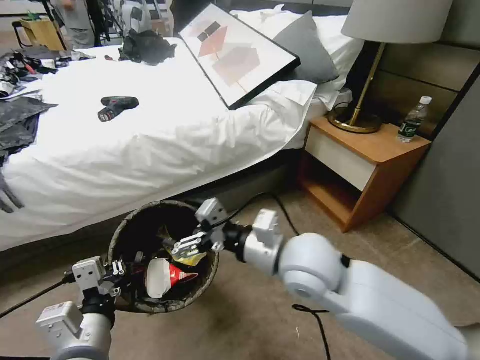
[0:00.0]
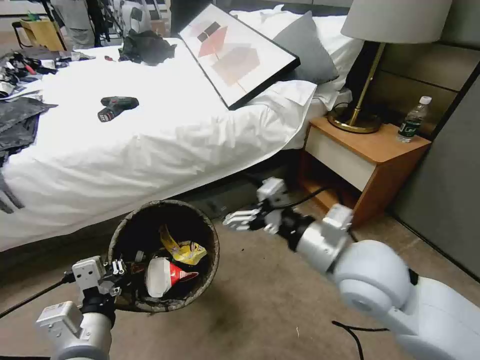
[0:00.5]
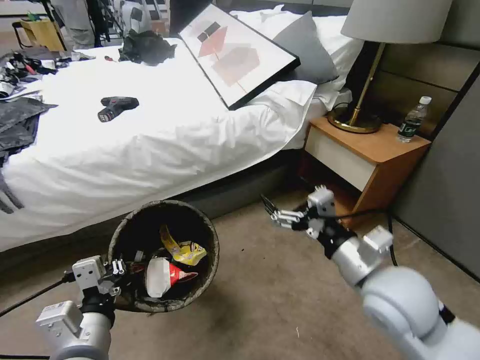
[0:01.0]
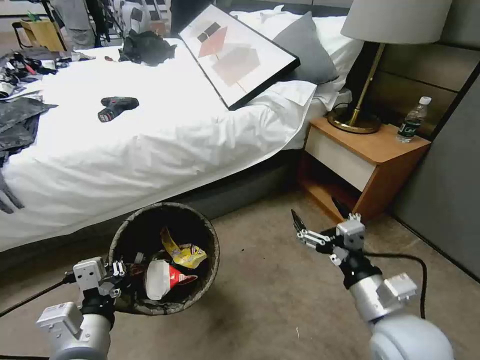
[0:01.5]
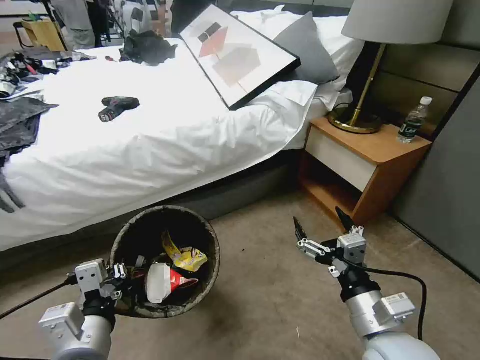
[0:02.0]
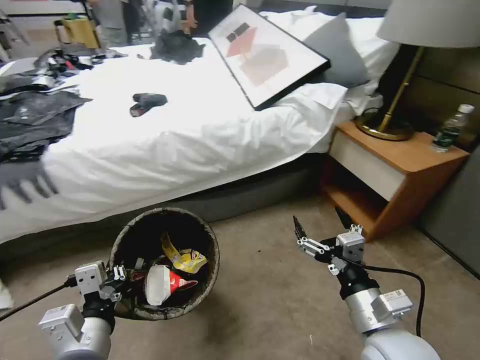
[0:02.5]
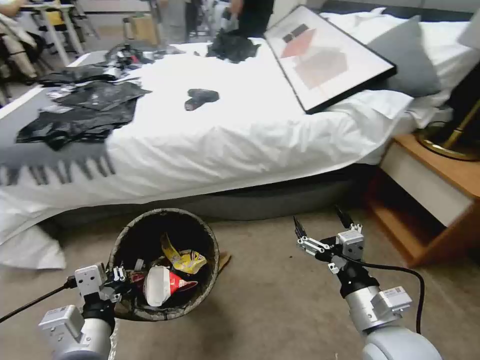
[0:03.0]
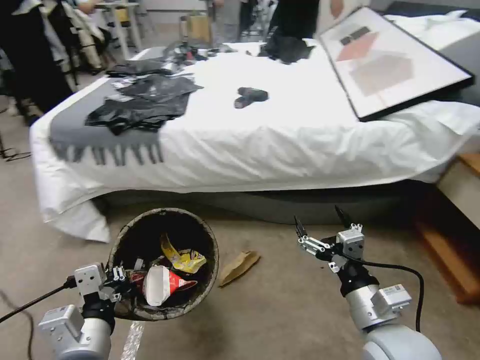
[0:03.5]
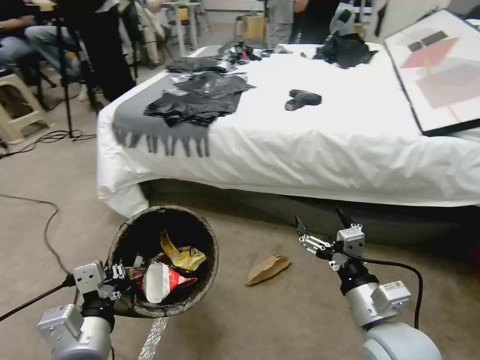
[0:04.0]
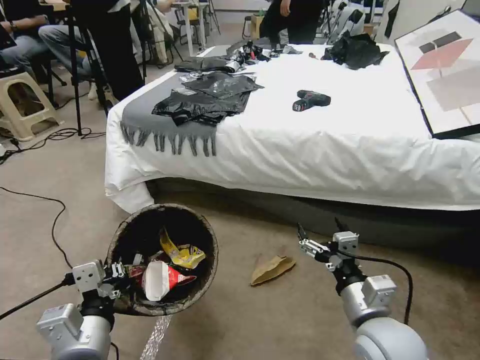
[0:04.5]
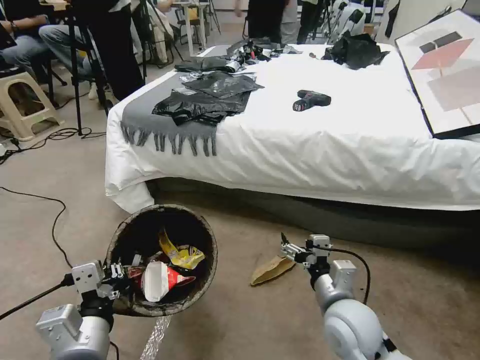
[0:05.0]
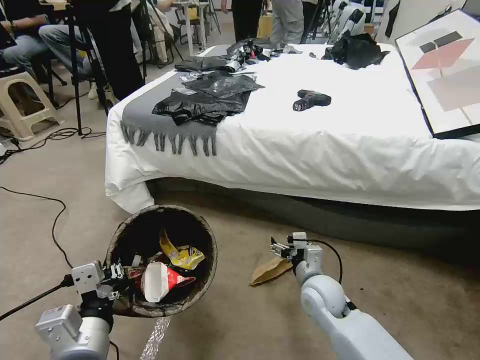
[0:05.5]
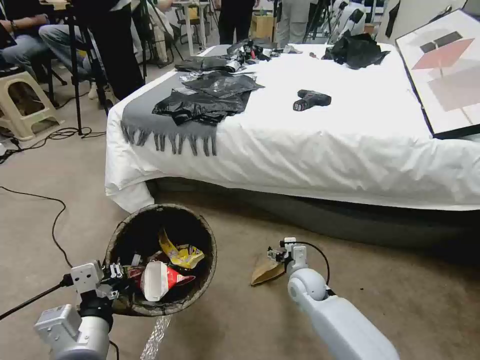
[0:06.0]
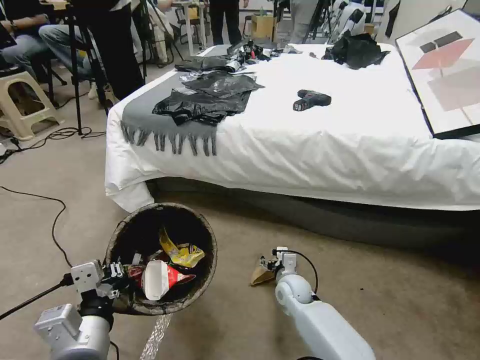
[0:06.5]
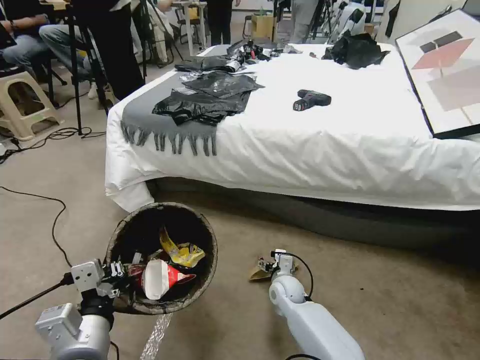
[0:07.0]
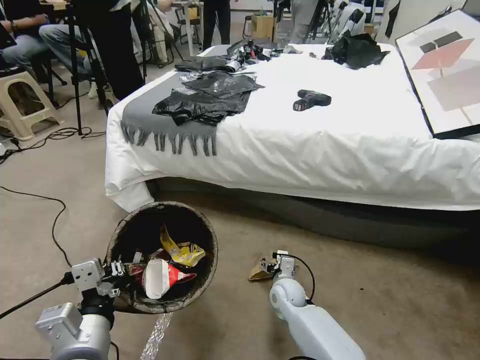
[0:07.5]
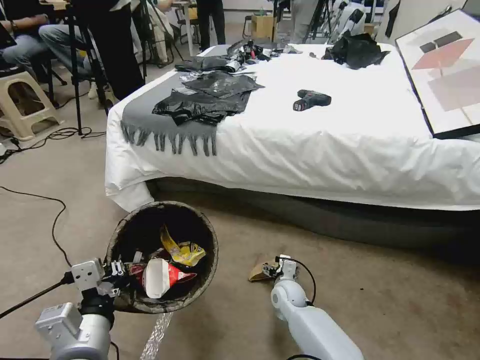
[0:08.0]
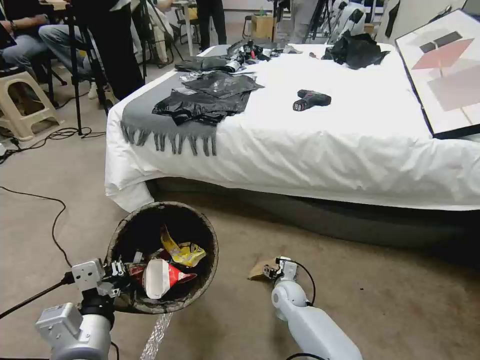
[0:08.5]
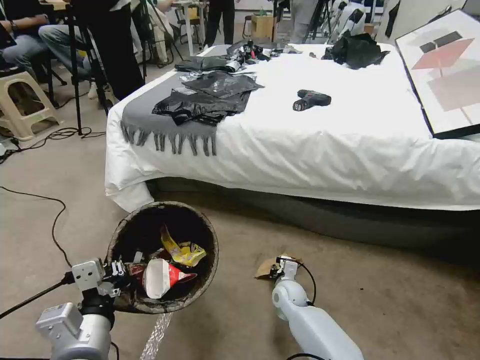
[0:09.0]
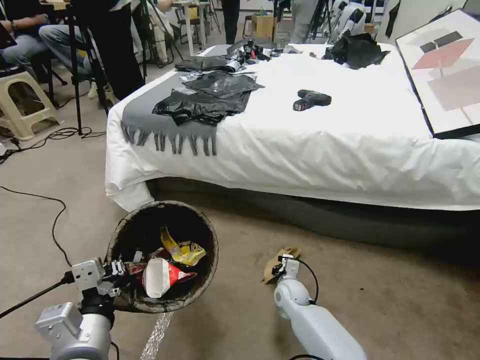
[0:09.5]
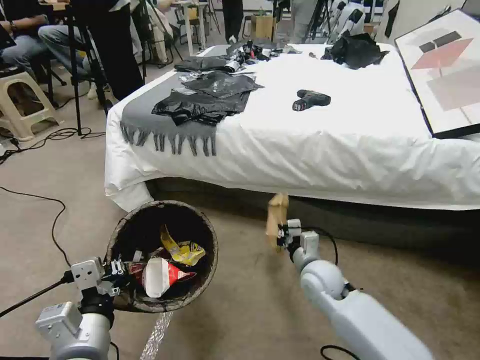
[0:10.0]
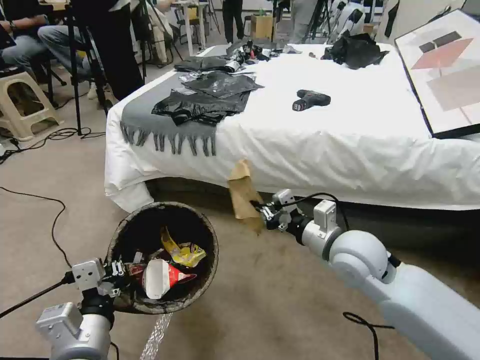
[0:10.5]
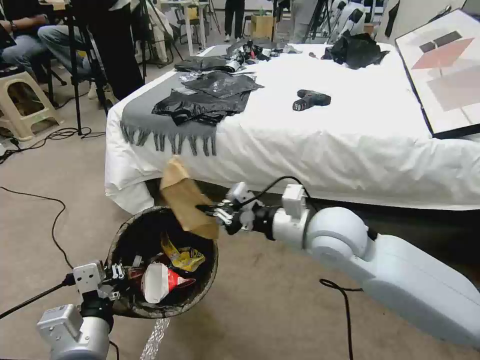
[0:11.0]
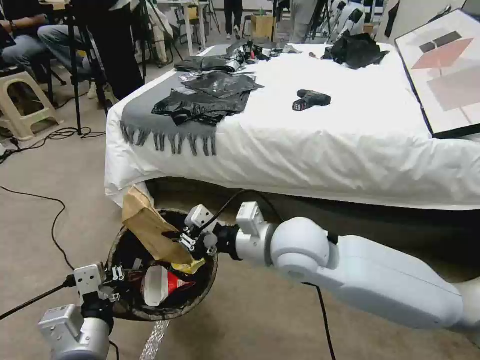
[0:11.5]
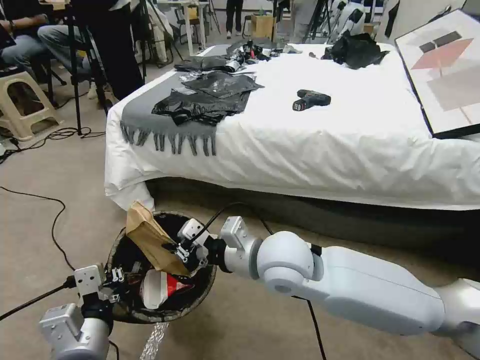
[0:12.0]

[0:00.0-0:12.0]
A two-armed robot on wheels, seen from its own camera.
Task of the whole recording: Pick up the trash bin, then pick up the garbage from the floor and place it into the trash bin.
0:00.0 to 0:02.0: The right gripper moves to the right, backward and downward, some 20 cm.
0:04.0 to 0:06.0: The right gripper moves downward and forward, about 25 cm.
0:06.0 to 0:08.0: The right gripper heads downward, covering about 5 cm.
0:08.0 to 0:10.0: The right gripper shifts about 15 cm upward, and closes up.
0:10.0 to 0:12.0: The right gripper is displaced upward and to the left by some 20 cm.

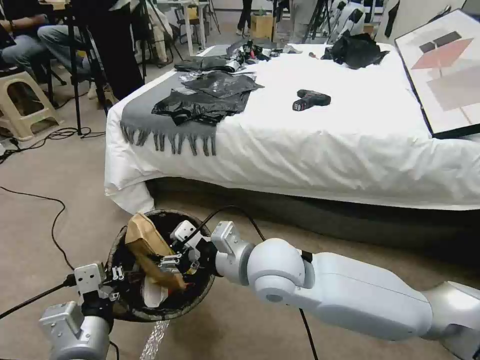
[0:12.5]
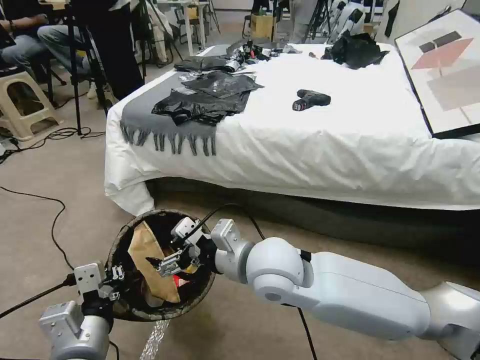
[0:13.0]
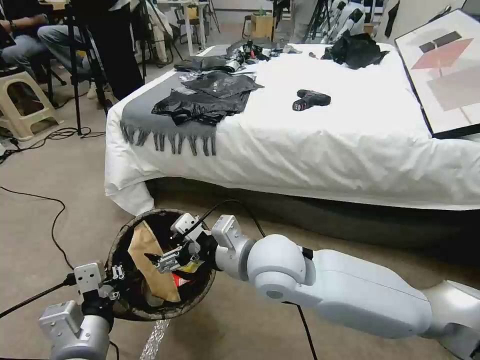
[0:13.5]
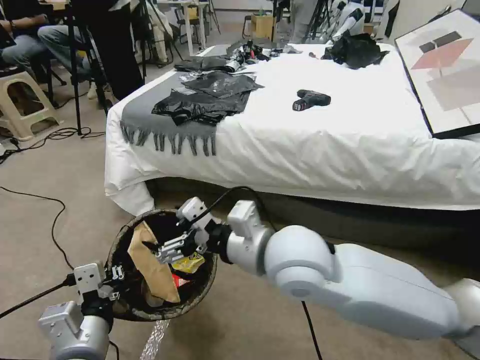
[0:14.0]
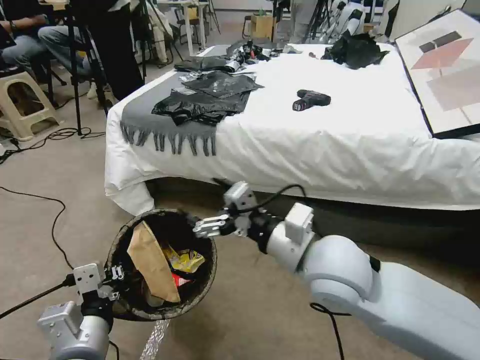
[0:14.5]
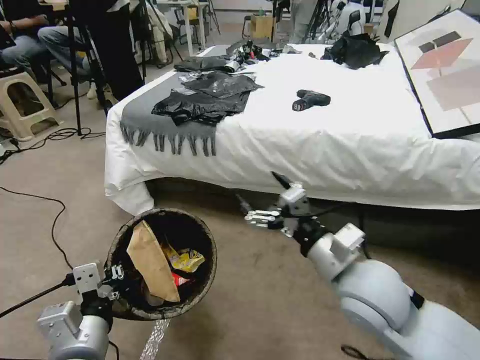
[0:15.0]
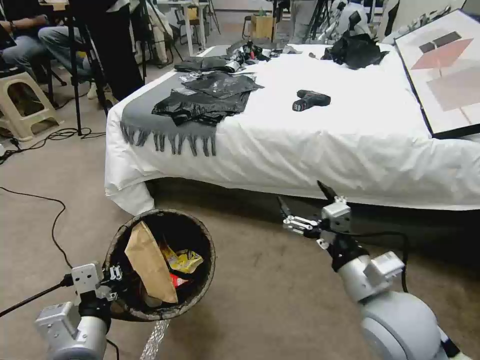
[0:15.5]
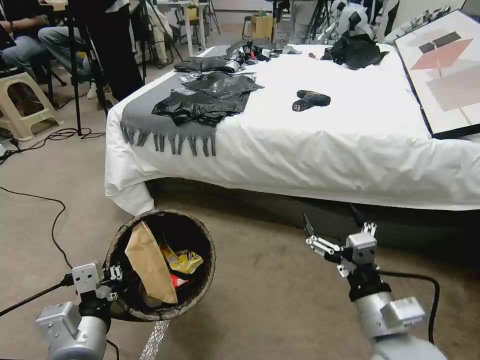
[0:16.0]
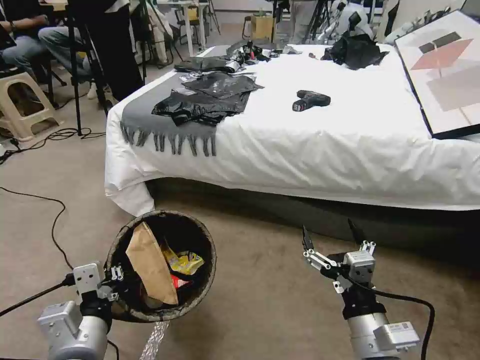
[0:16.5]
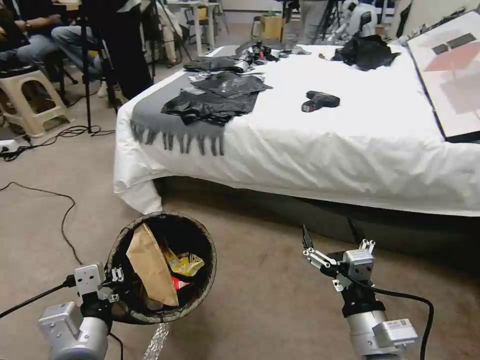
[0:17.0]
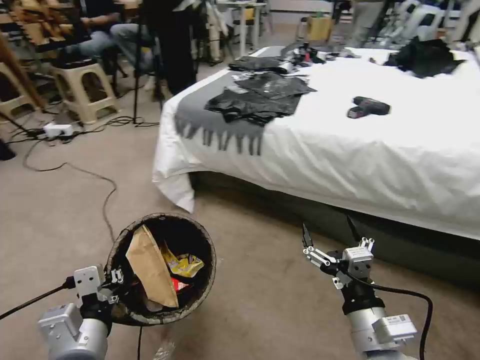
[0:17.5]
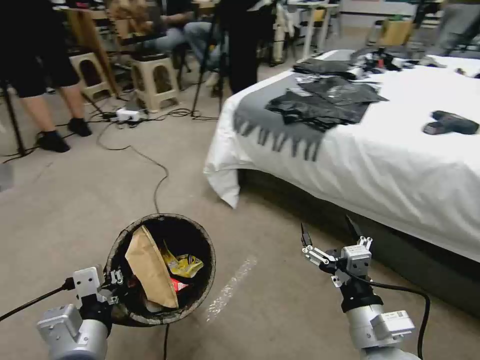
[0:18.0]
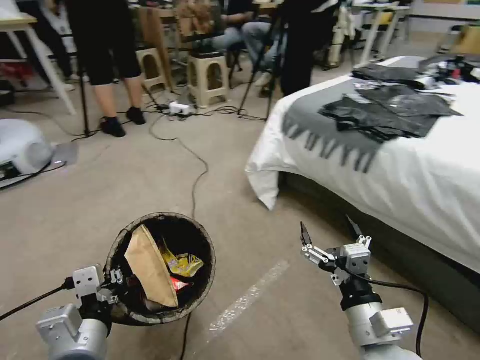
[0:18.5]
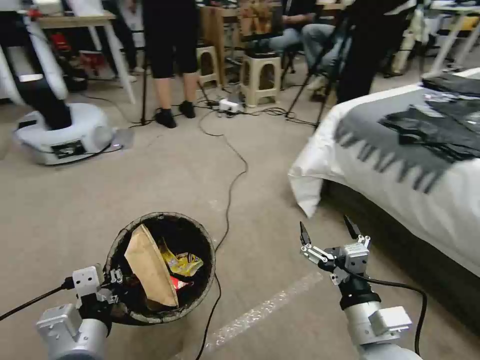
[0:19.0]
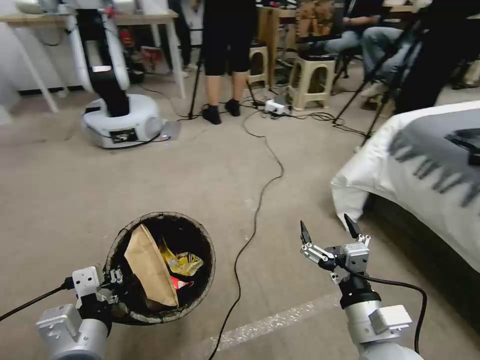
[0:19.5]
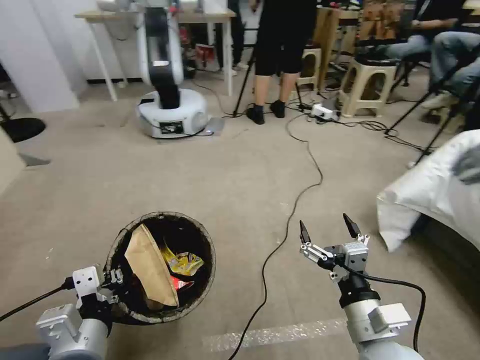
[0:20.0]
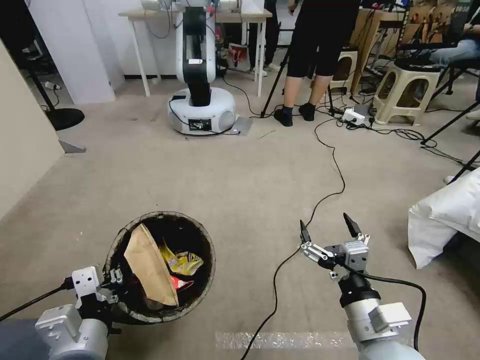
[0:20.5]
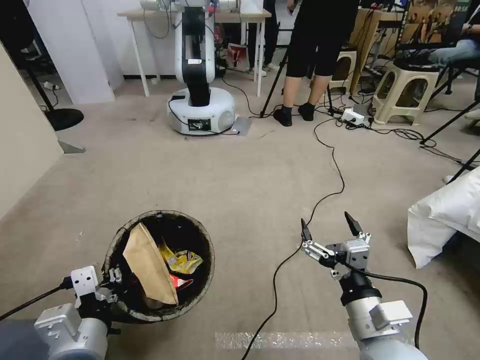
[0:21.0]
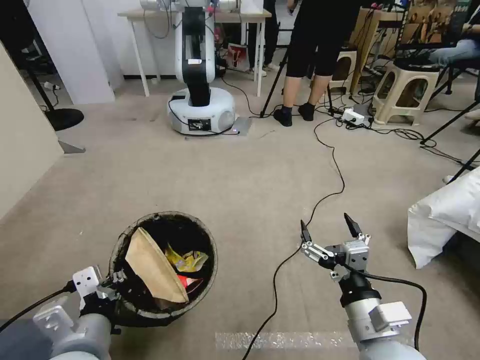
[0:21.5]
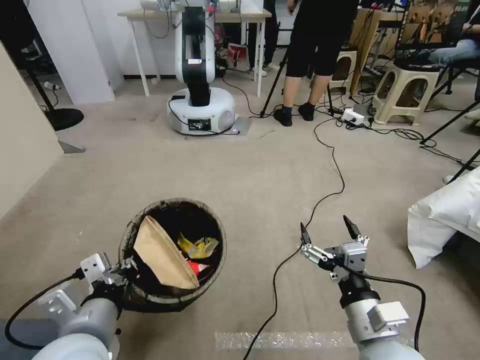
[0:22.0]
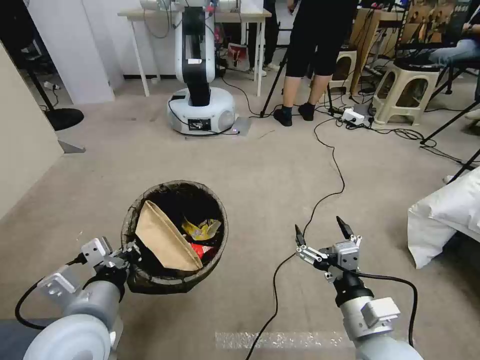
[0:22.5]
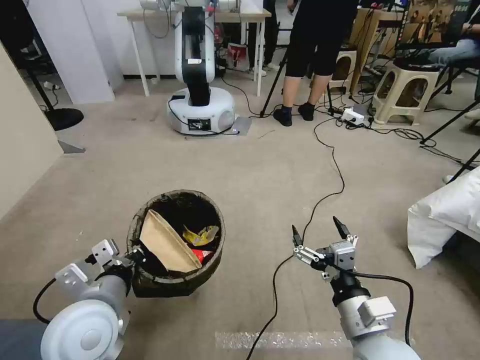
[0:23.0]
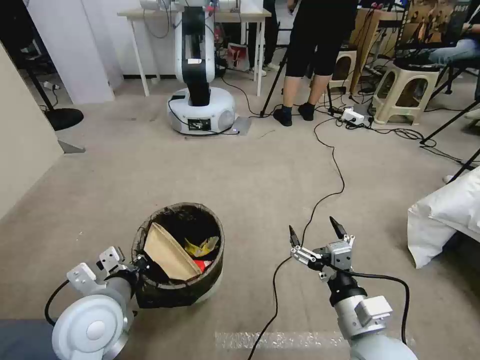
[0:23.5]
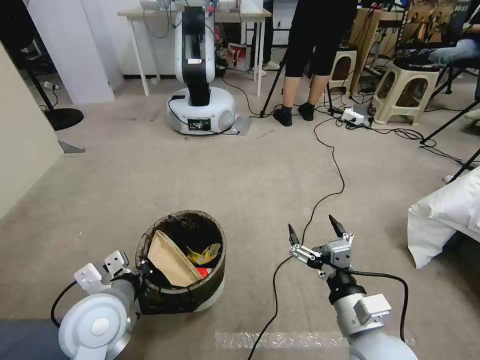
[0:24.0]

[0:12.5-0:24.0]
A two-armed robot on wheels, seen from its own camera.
Task of the whole recording: Pick up the trash bin, then pick up the garbage from the floor and place it into the trash bin.
0:12.5 to 0:14.5: The right gripper heads to the right, covering about 10 cm, and opens up.
0:14.5 to 0:16.5: The right gripper moves backward, downward and to the right, some 20 cm.
0:22.0 to 0:24.0: The left gripper shifts some 5 cm forward.

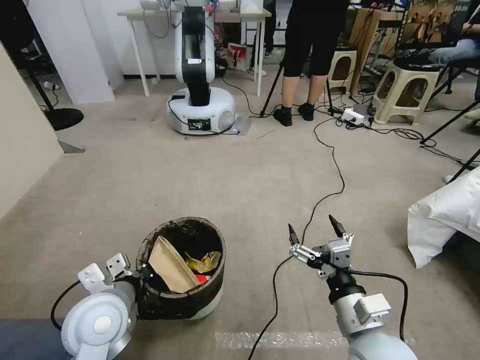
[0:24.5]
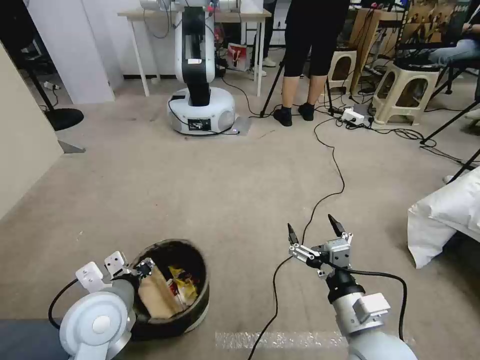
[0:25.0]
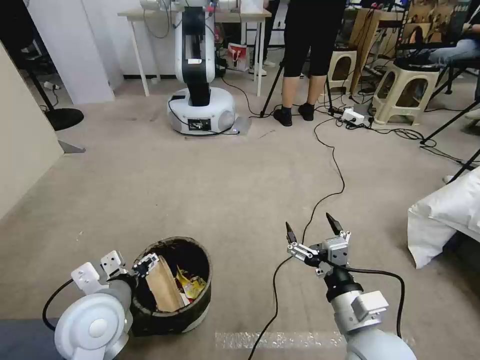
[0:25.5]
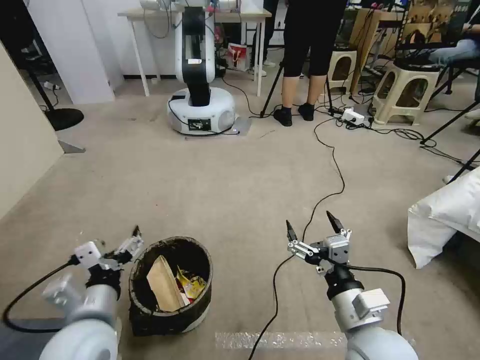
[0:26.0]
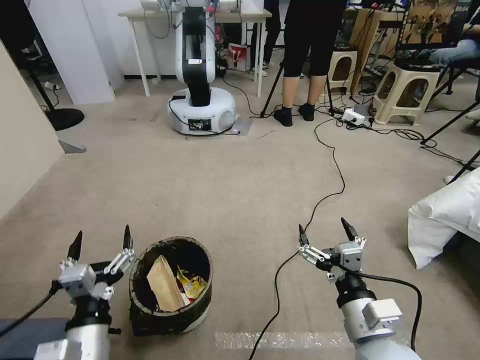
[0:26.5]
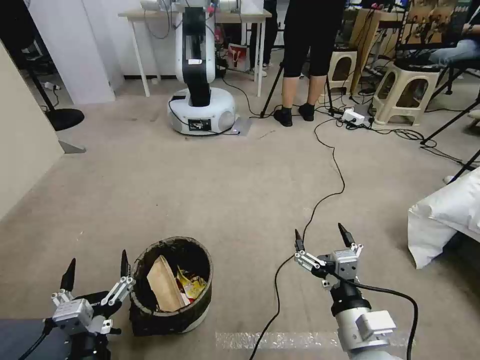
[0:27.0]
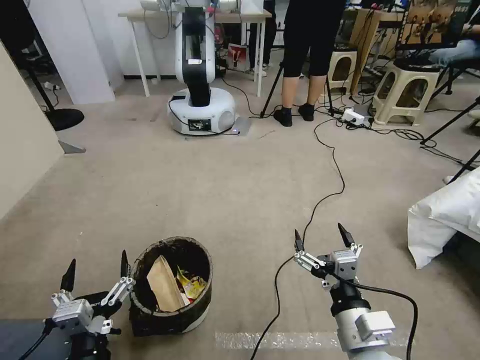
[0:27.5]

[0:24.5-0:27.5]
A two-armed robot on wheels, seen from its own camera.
Task of the whole recording: Pick up the trash bin, then pick up the garbage from the floor and place it into the trash bin.
0:24.5 to 0:26.0: The left gripper goes roughly 5 cm backward, and opens.
0:26.0 to 0:27.5: The left gripper goes about 10 cm backward and downward.
